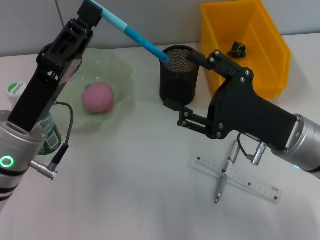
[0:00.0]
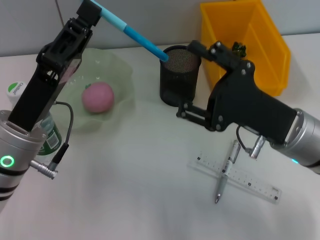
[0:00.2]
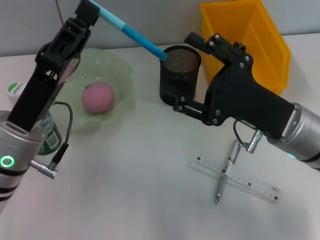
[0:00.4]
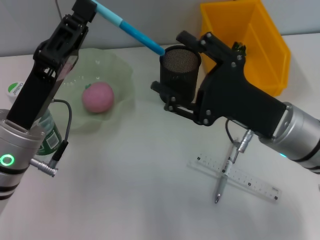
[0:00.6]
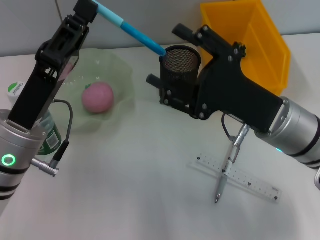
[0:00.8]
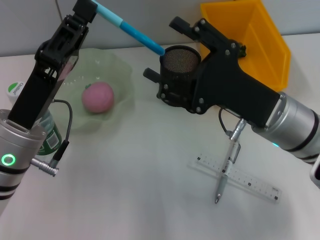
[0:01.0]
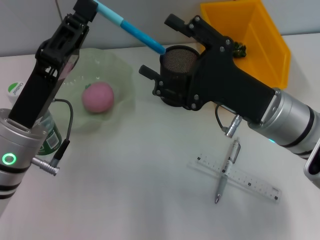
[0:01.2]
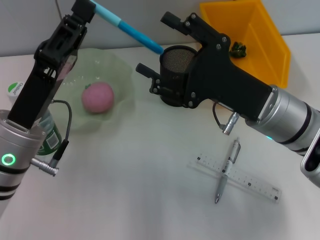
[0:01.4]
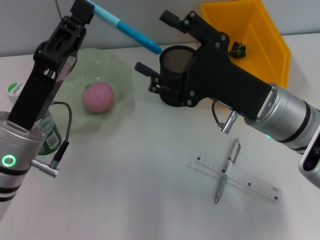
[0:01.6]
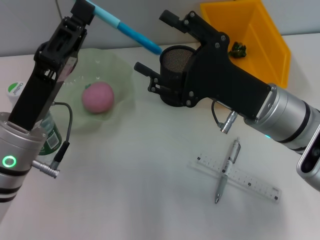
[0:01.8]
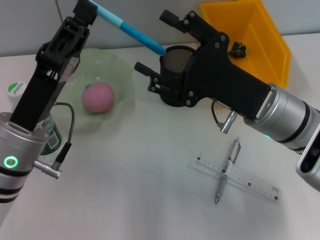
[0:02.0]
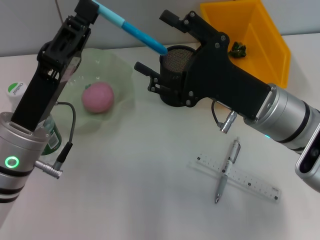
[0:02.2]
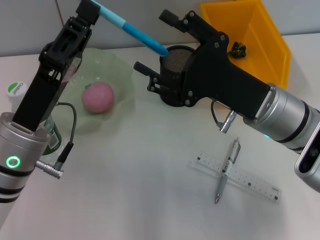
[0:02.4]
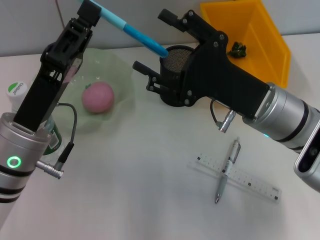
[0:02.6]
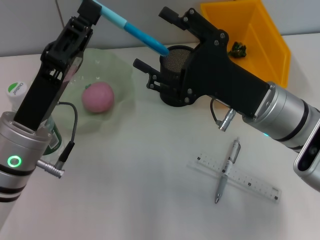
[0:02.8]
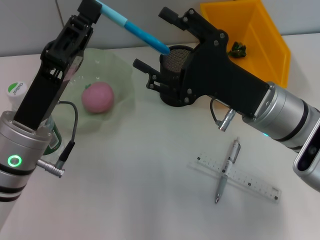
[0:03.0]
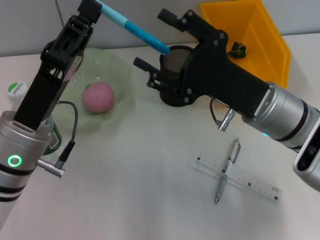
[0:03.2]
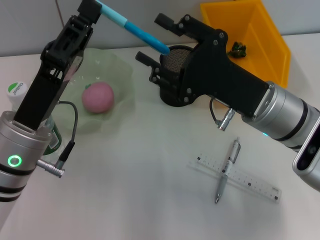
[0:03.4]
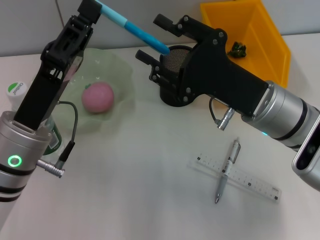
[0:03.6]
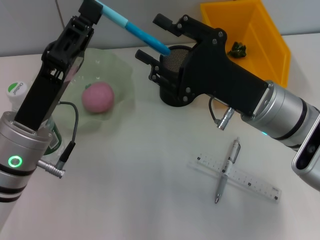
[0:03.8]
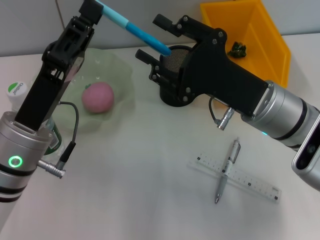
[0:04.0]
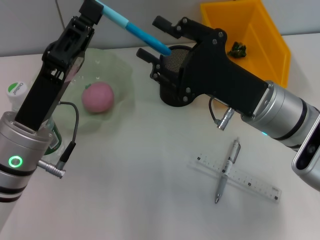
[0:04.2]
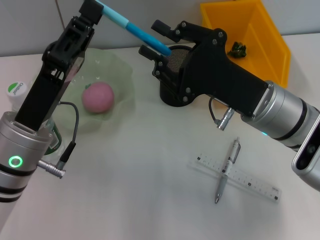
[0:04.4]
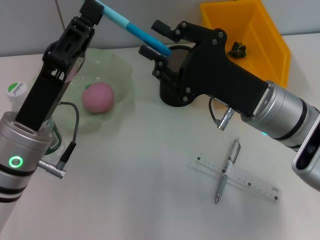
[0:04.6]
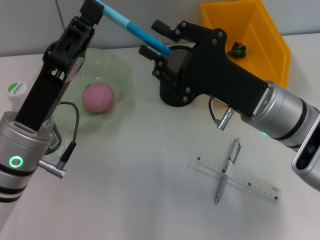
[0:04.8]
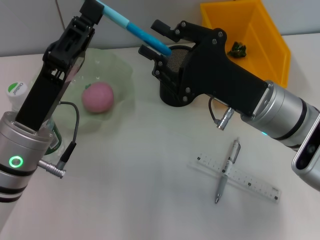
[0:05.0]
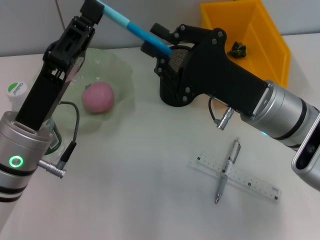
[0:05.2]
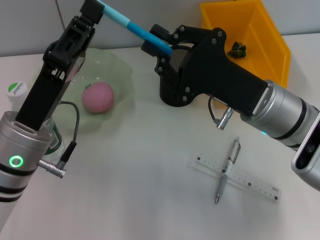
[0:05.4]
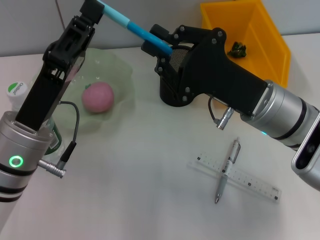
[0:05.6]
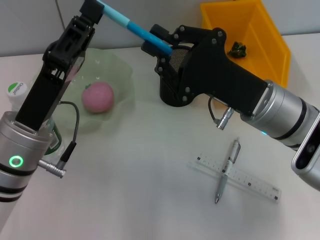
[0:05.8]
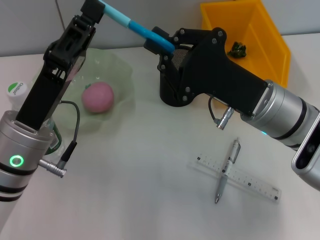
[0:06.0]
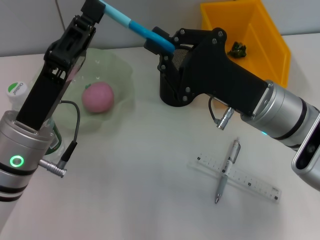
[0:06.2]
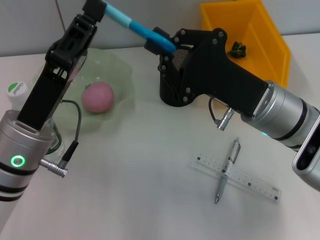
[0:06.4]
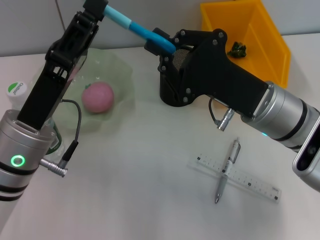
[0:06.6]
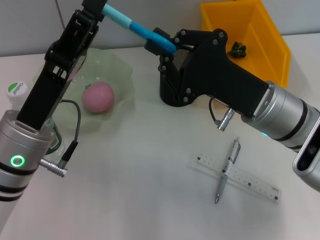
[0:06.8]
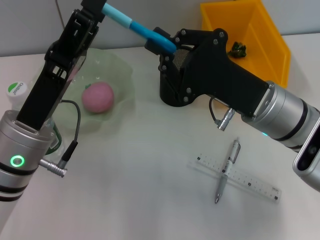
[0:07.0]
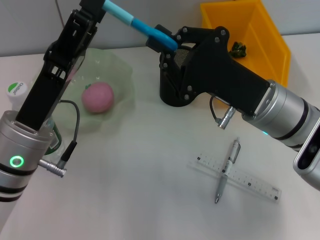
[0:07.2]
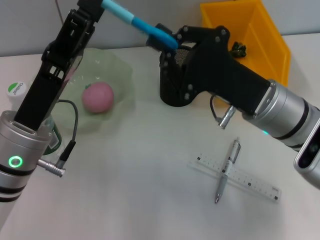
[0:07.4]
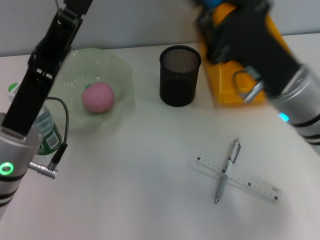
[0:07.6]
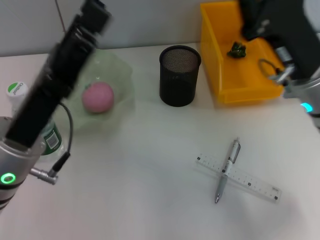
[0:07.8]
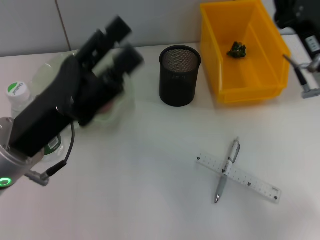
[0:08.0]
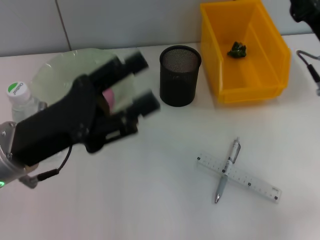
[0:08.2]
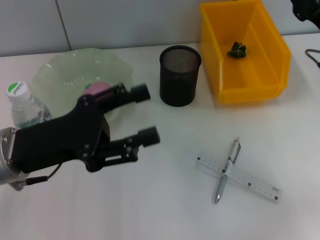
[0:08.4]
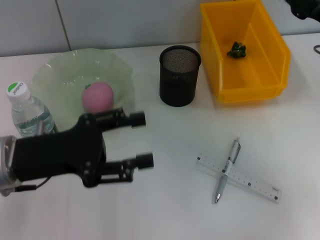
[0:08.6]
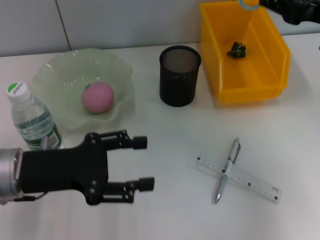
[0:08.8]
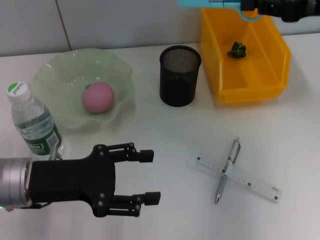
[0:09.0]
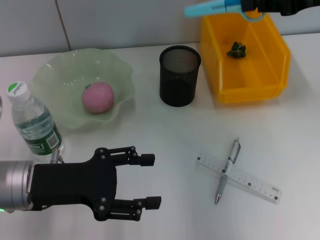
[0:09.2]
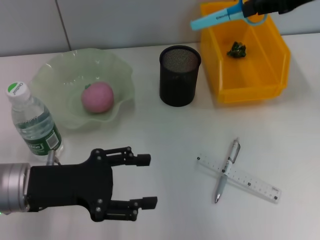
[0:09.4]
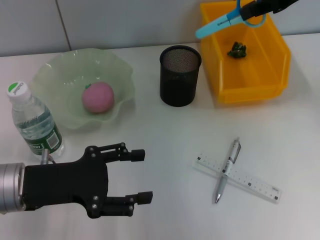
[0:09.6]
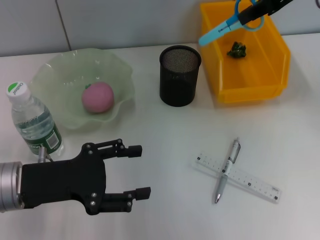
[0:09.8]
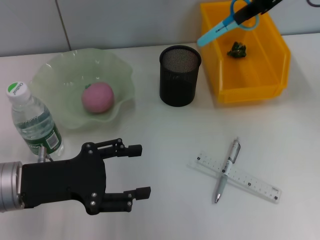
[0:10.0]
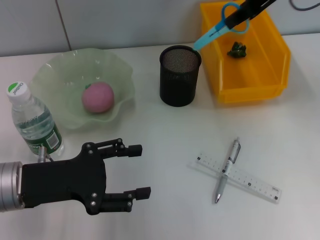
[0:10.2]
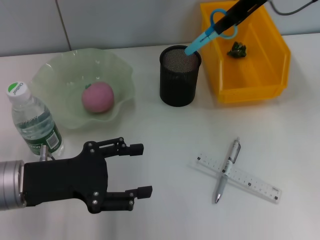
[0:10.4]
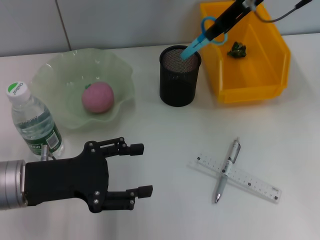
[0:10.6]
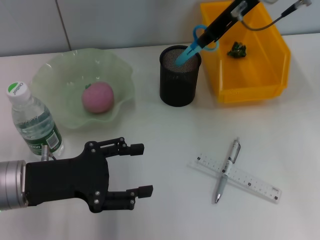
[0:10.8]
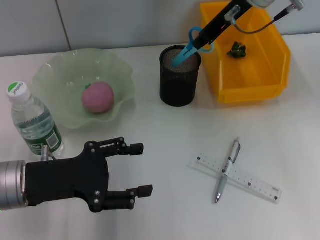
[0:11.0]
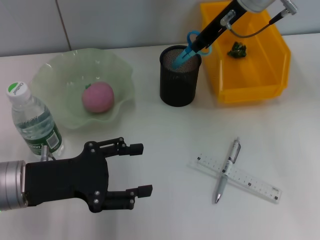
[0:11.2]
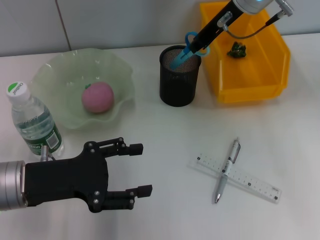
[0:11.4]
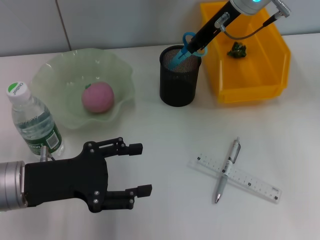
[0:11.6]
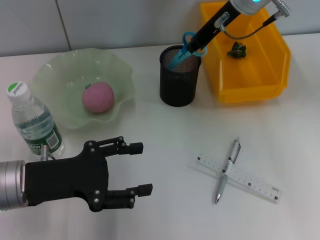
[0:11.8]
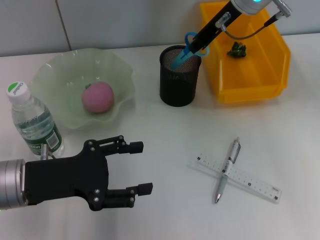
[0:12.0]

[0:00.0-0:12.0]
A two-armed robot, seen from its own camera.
Step, 0:00.0 to 0:07.0: Pass the blue scissors from the left hand to the right hand.
0:00.0 to 0:01.6: The right gripper shifts by about 5 cm.
0:01.6 to 0:03.0: Neither gripper changes place.
0:03.0 to 0:04.4: The right gripper closes.
0:04.4 to 0:06.0: The right gripper closes.
0:06.0 to 0:07.6: The left gripper opens up.
0:07.6 to 0:09.0: The right gripper moves upward, to the right and forward, roughly 15 cm.
0:09.0 to 0:10.4: The right gripper goes approximately 15 cm to the left and forward.
0:10.4 to 0:12.0: The right gripper is displaced downward by some 5 cm.

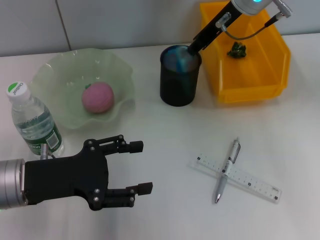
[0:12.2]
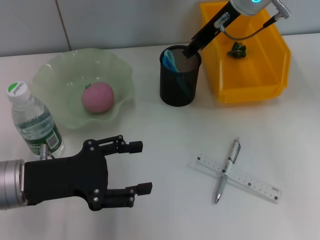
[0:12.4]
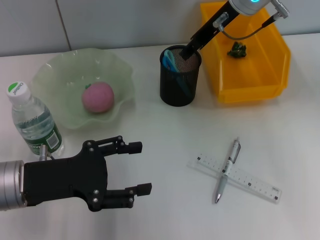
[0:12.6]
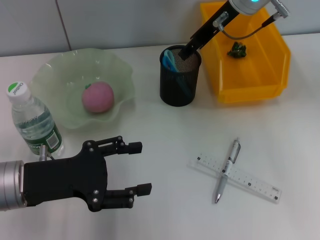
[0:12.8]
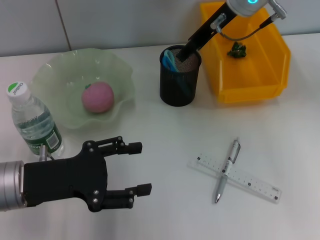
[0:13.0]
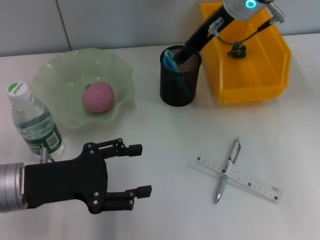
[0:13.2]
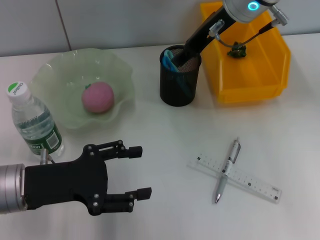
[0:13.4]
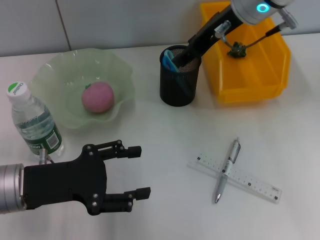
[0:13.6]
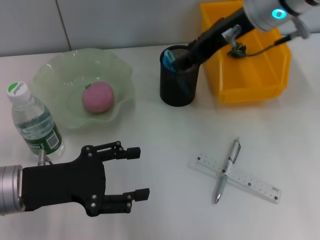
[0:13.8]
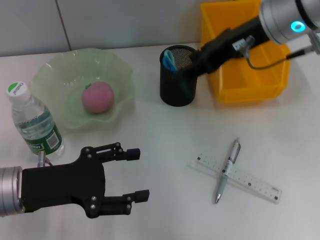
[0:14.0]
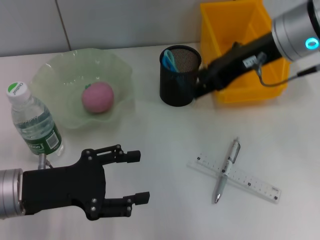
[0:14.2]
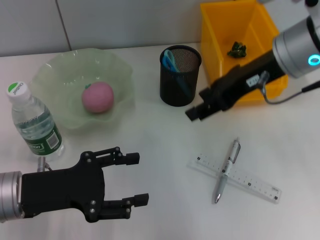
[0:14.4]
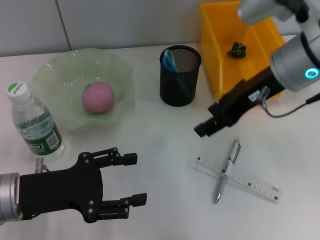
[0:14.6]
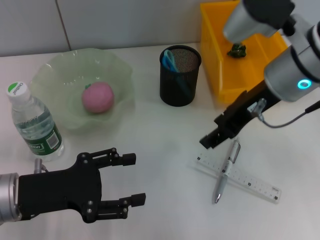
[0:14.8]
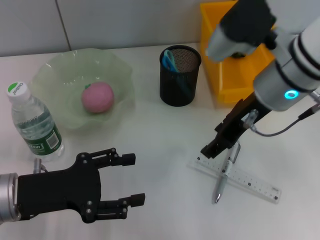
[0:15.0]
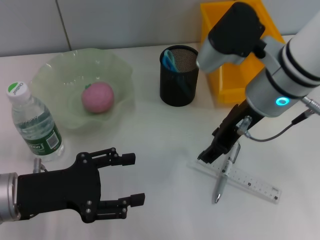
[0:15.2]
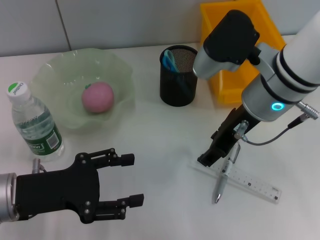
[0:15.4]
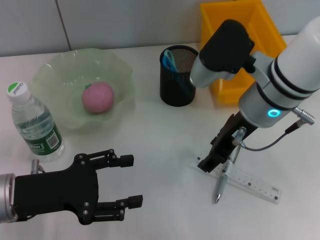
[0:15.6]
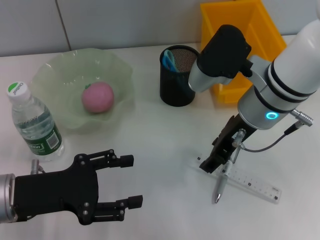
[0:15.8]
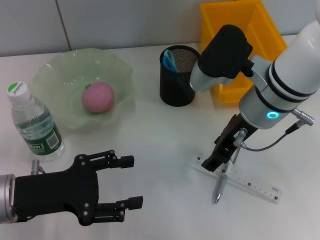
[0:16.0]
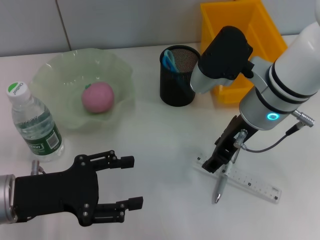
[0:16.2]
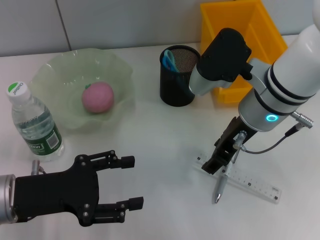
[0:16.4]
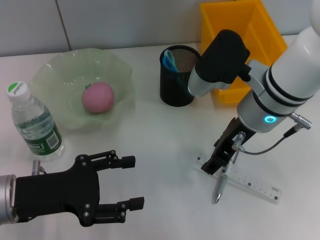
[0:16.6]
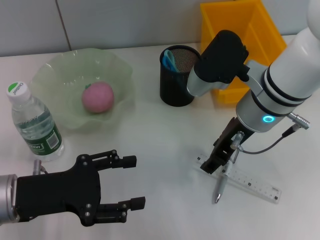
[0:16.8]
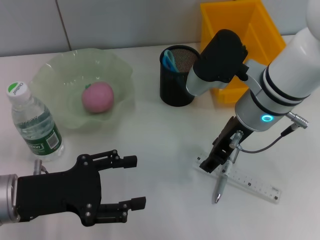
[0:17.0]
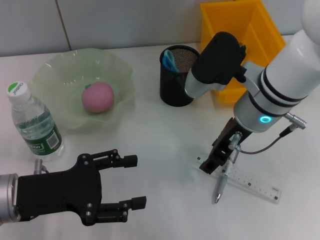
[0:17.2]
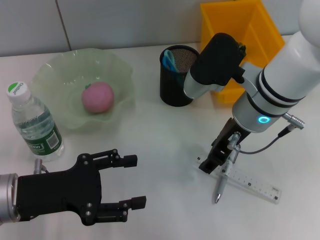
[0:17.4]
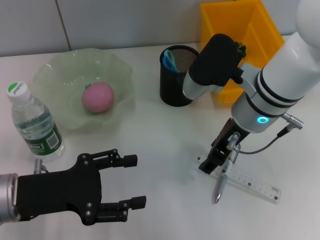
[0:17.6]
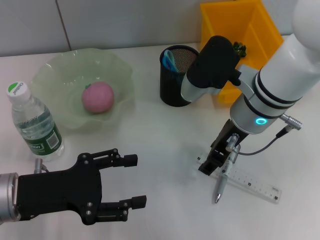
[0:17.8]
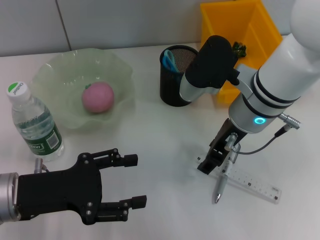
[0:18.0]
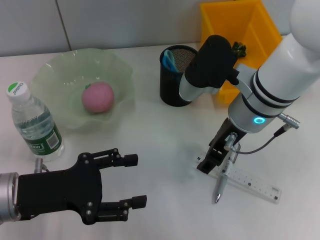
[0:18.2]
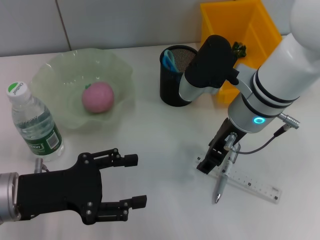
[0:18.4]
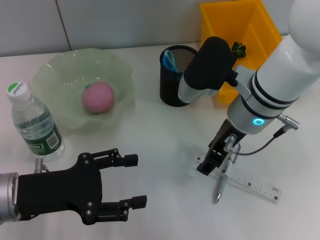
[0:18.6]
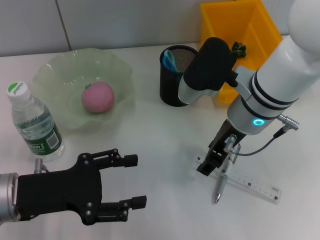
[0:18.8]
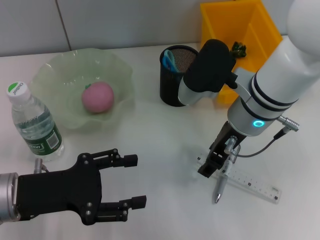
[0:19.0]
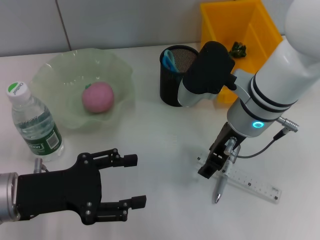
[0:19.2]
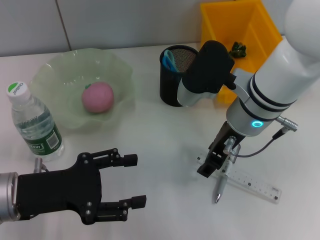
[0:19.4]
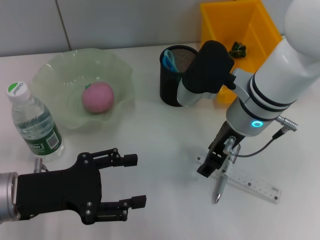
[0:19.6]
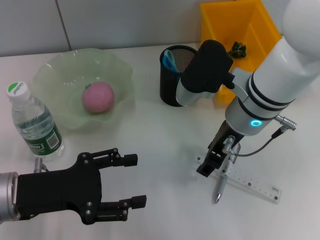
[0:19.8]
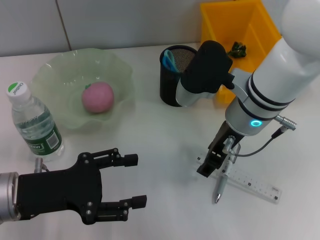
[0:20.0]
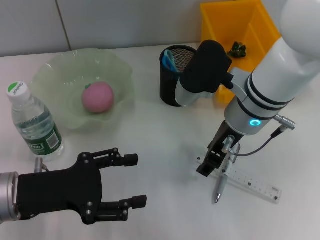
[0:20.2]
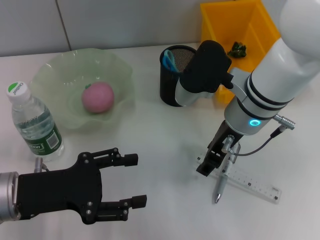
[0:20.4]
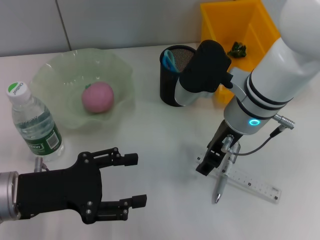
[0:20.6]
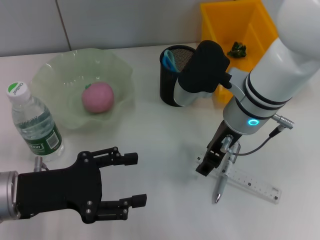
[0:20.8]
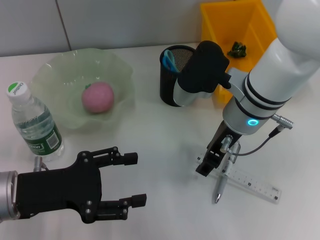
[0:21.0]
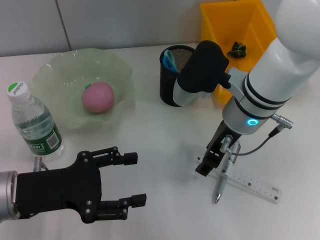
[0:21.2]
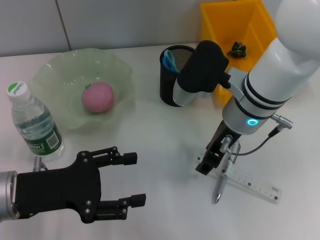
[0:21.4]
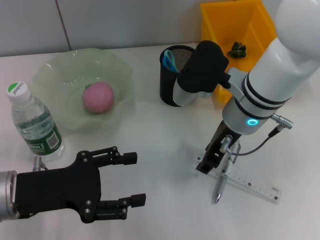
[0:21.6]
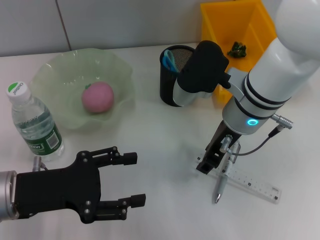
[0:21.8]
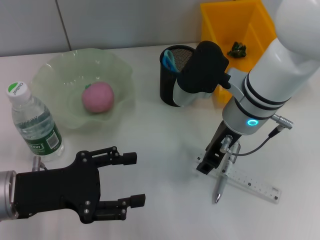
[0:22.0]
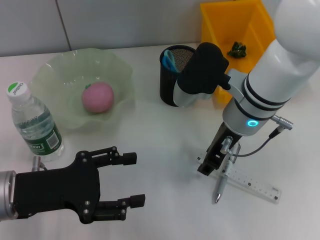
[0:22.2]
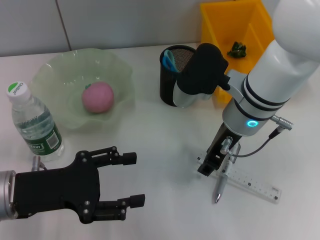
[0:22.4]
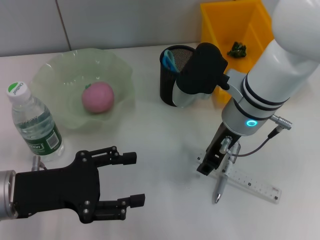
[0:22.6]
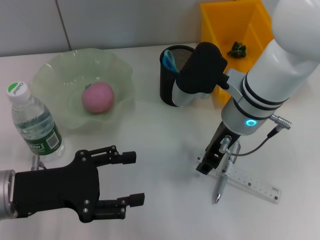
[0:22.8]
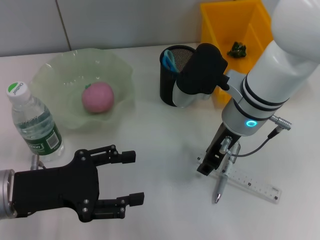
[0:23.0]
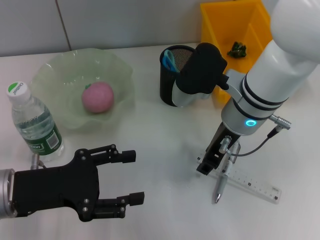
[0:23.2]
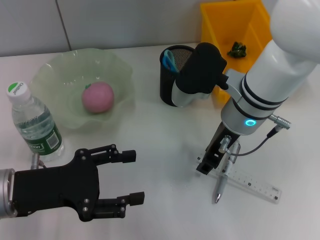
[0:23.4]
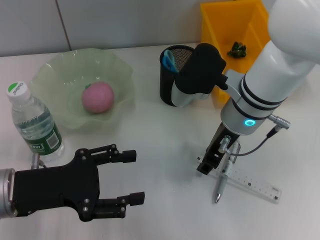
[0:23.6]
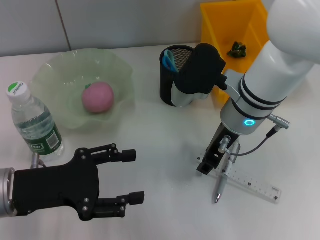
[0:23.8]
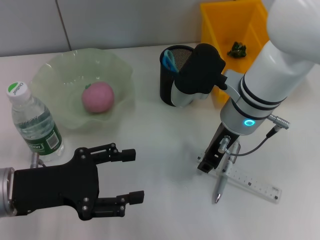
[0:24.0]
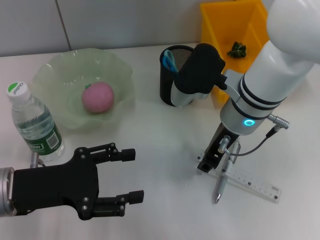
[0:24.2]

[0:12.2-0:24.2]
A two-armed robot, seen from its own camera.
0:12.2 to 0:13.8: The right gripper heads backward, covering approximately 5 cm, and opens.
0:13.8 to 0:15.2: The right gripper travels backward and downward by approximately 10 cm.
0:15.2 to 0:18.2: The grippers make only small movements.
0:18.2 to 0:22.6: Both grippers stay about where they are.
0:22.6 to 0:24.2: The two grippers keep their place.
